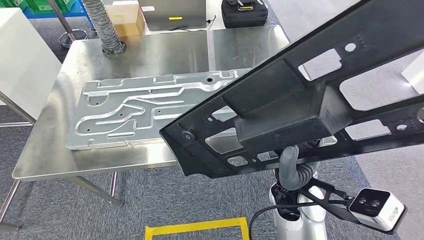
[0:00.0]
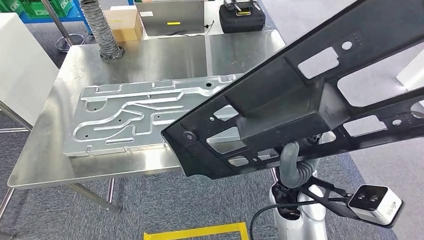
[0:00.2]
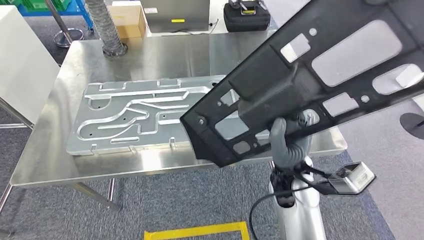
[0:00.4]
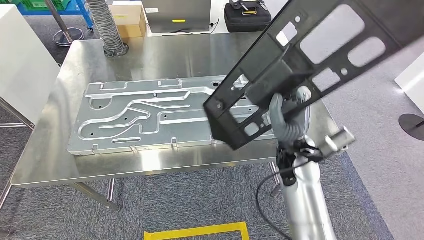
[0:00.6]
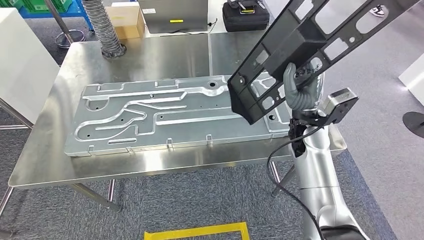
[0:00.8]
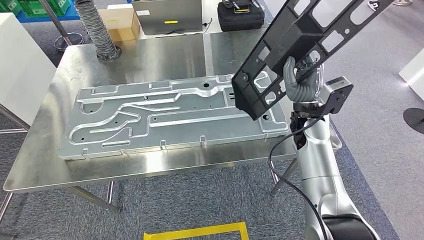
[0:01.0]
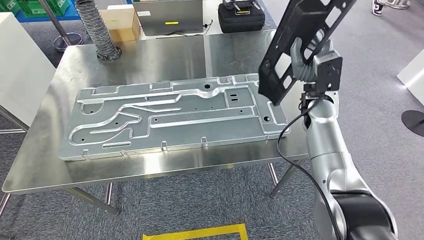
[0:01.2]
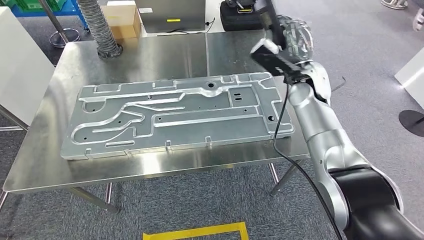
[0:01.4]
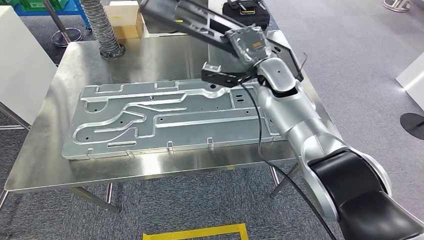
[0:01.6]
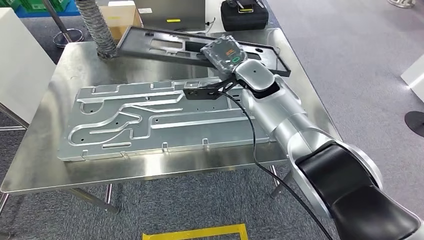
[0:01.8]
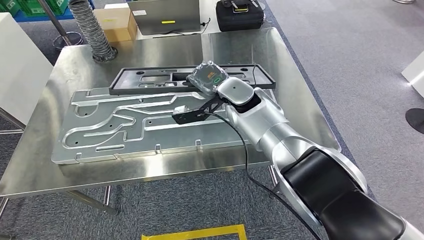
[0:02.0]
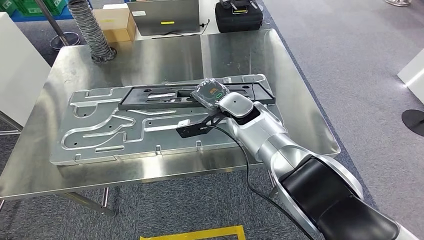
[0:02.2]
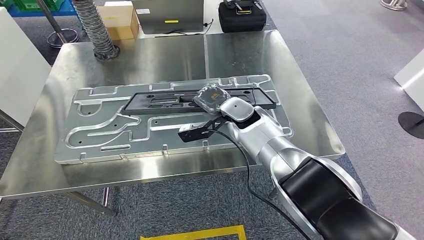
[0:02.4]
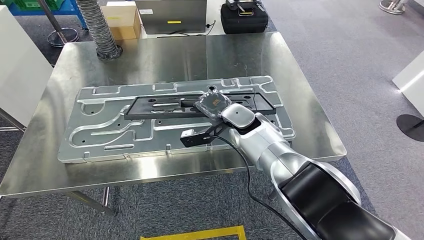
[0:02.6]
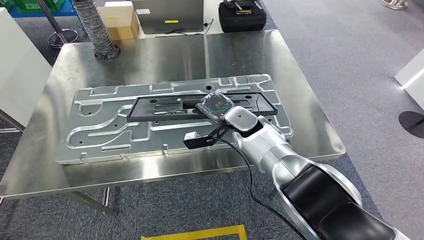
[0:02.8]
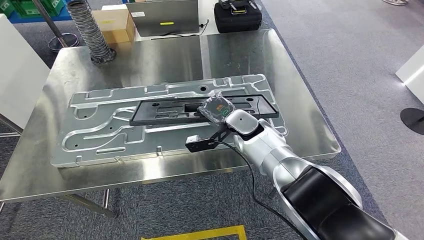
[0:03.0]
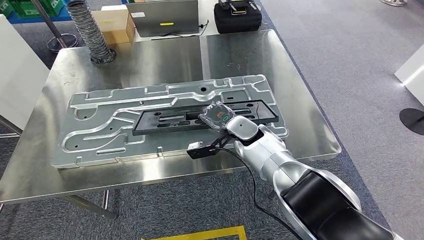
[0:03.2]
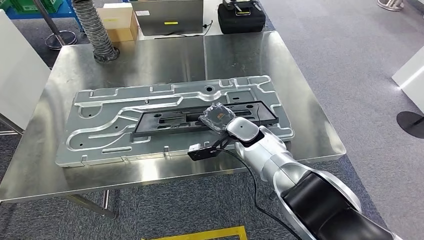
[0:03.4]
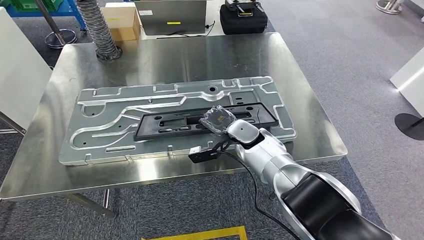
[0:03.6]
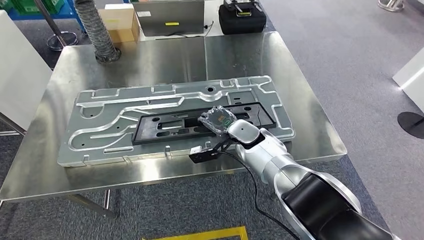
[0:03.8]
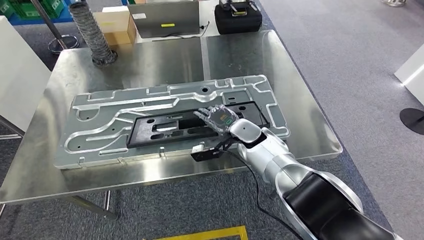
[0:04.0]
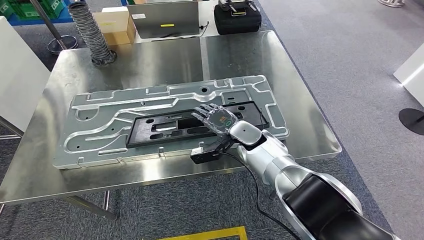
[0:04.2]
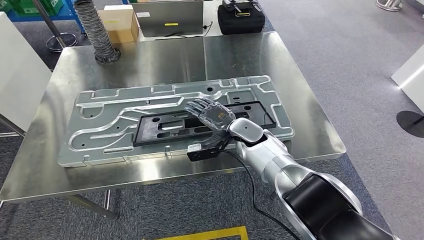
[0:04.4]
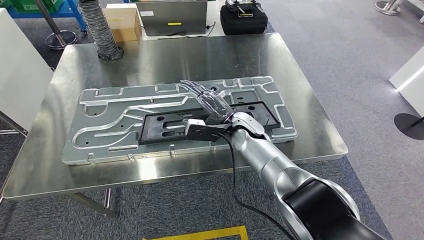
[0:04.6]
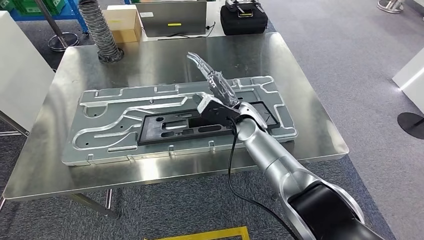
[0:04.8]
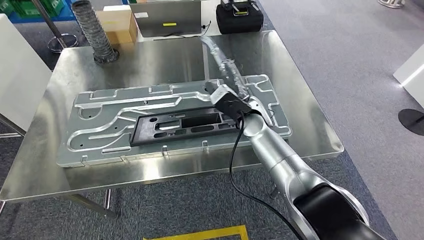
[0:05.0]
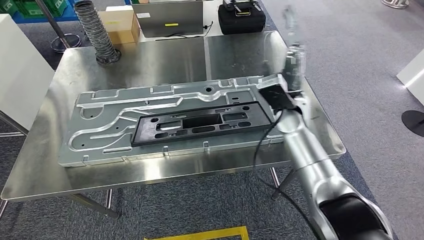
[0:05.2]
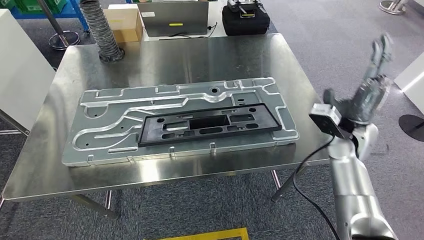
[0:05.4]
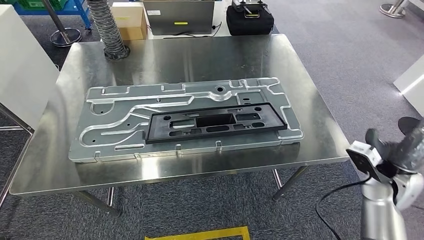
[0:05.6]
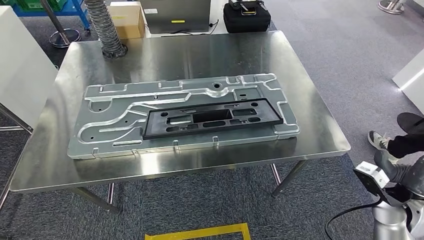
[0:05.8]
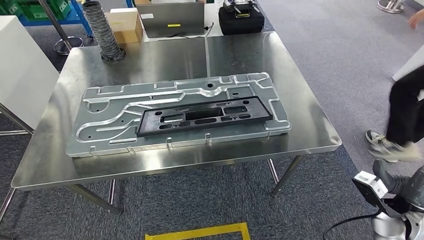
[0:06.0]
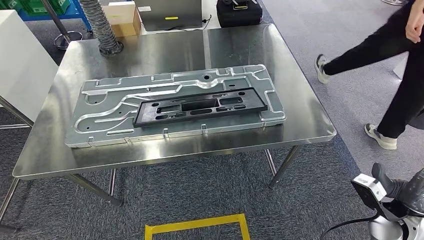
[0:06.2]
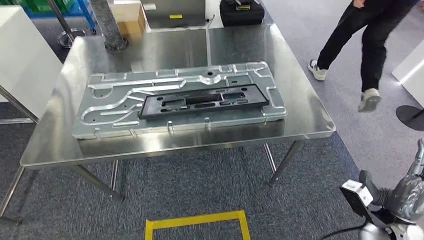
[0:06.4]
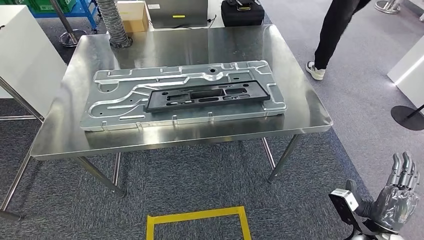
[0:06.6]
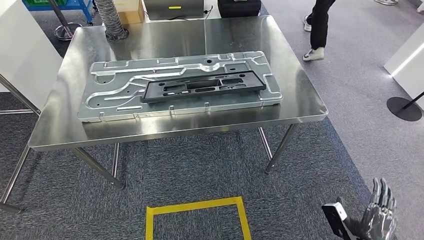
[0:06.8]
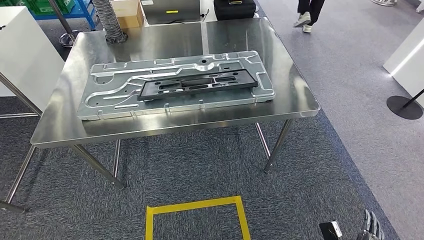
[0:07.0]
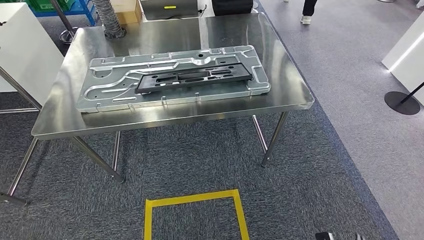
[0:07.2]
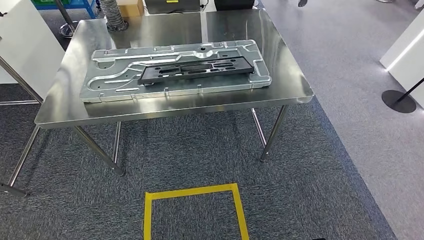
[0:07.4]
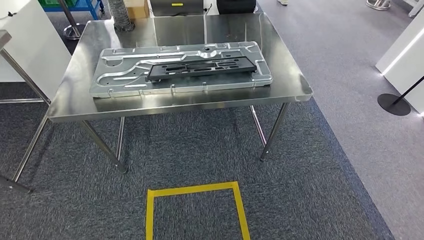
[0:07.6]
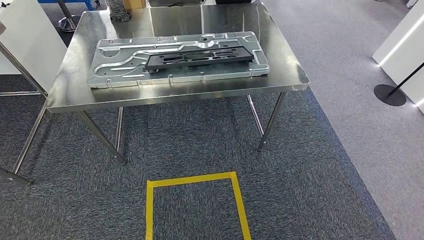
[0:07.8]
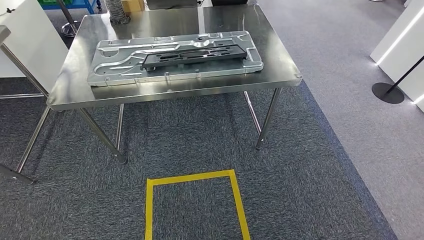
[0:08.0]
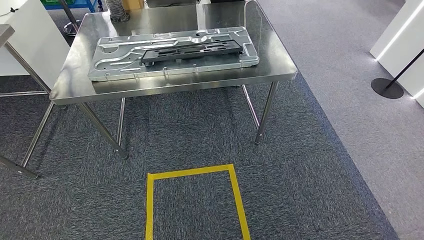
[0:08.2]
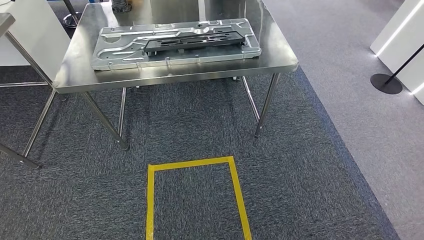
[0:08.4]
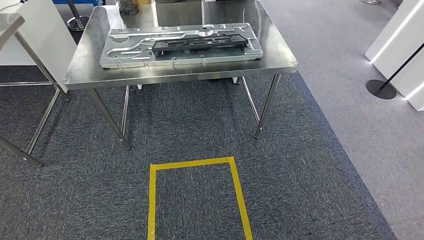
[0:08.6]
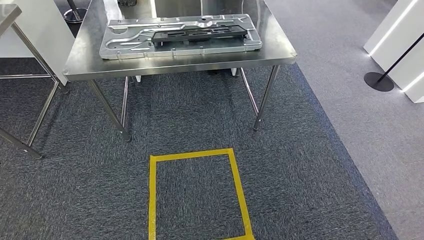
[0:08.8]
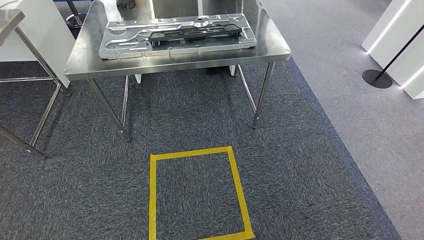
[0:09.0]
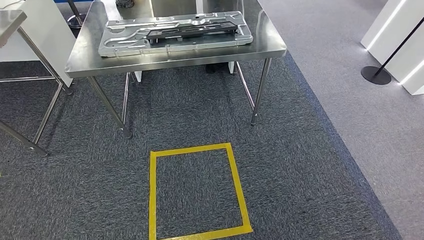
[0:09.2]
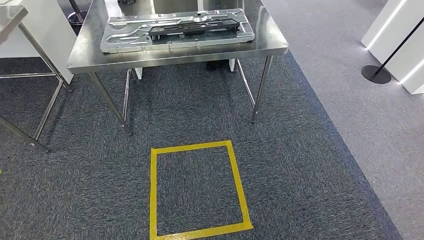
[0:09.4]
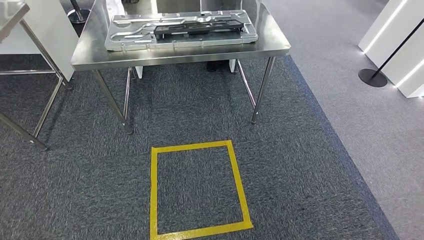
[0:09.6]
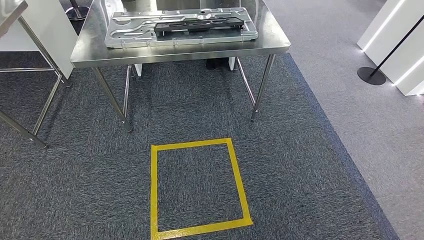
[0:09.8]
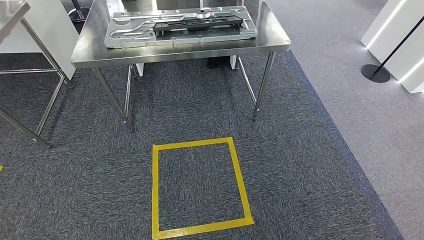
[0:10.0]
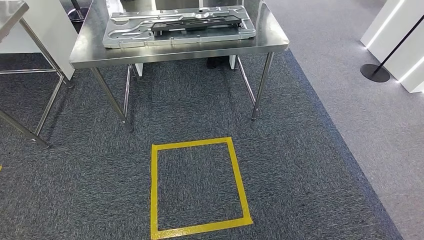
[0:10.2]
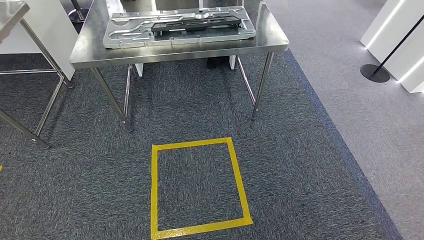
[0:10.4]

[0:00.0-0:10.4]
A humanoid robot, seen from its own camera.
Step, 0:00.8 to 0:05.4: Insert the large material into the corresponding hole on the workbench.
Step, 0:06.8 to 0:10.4: Move to the initial position of the shelf.
0:09.0 to 0:10.4: The hands move only a little.
